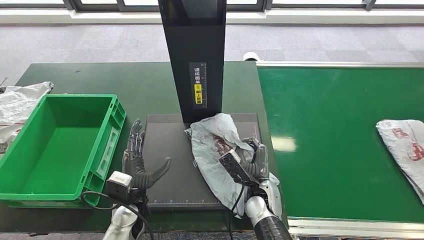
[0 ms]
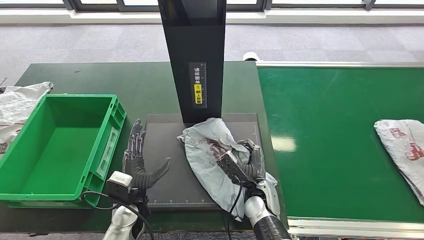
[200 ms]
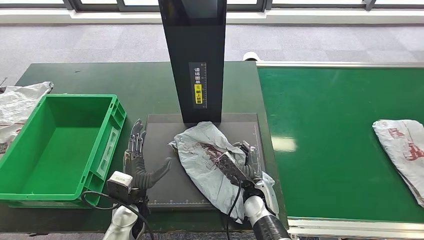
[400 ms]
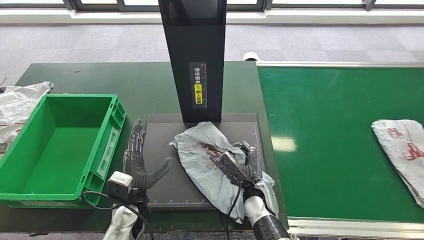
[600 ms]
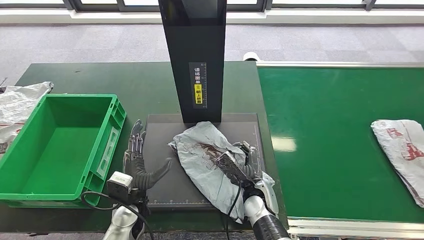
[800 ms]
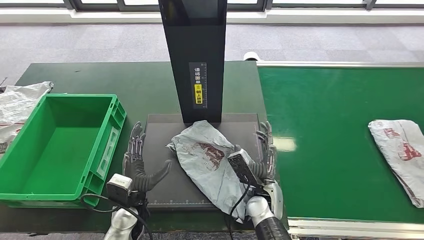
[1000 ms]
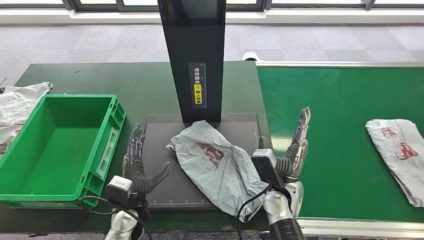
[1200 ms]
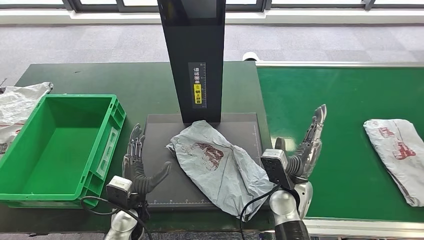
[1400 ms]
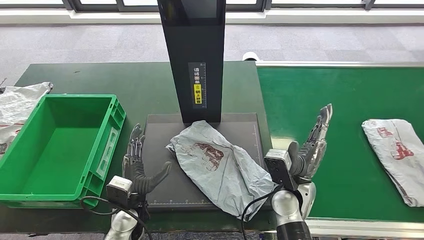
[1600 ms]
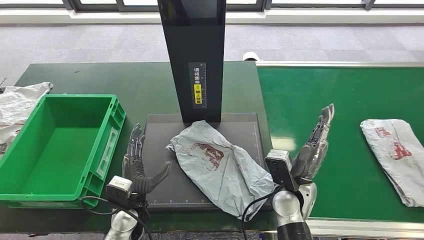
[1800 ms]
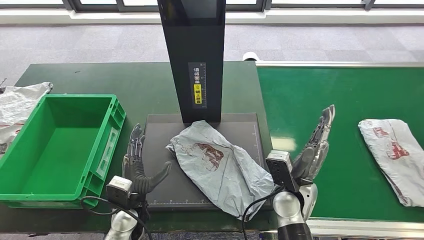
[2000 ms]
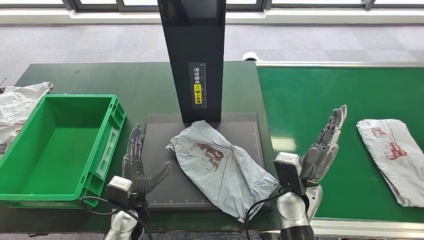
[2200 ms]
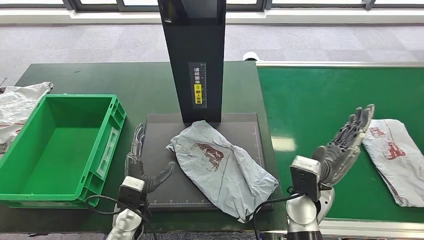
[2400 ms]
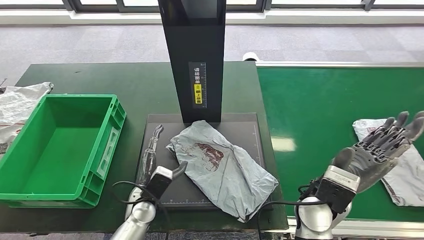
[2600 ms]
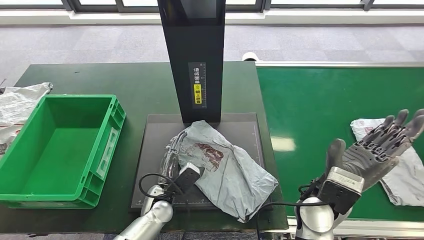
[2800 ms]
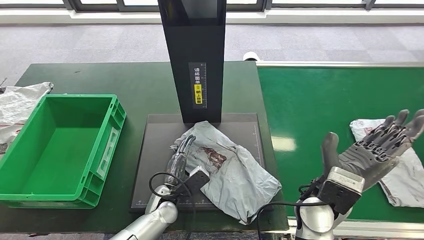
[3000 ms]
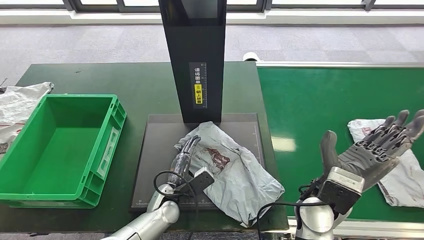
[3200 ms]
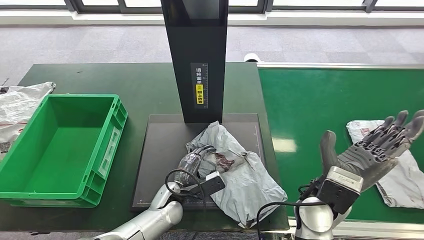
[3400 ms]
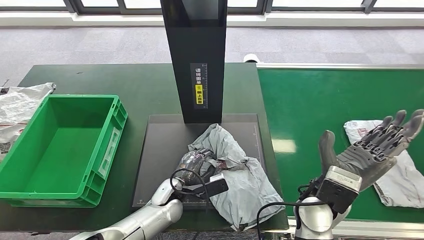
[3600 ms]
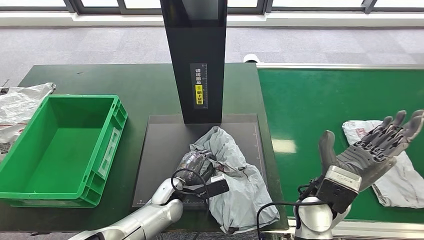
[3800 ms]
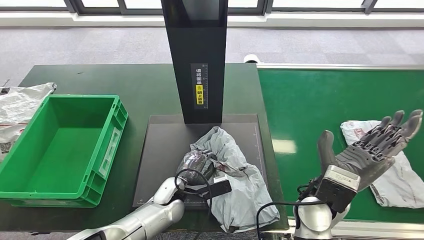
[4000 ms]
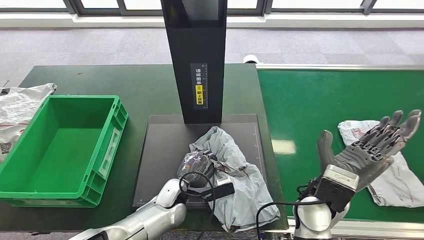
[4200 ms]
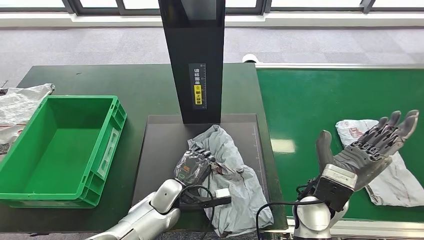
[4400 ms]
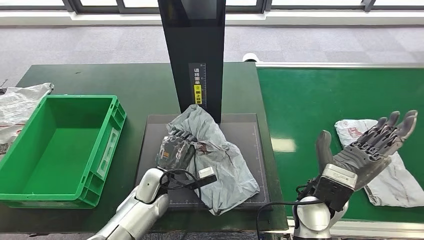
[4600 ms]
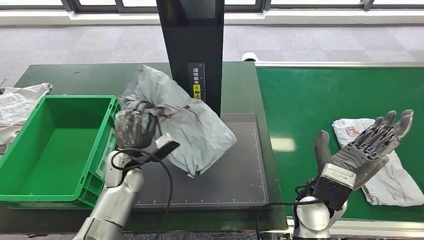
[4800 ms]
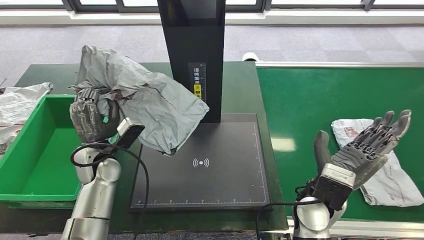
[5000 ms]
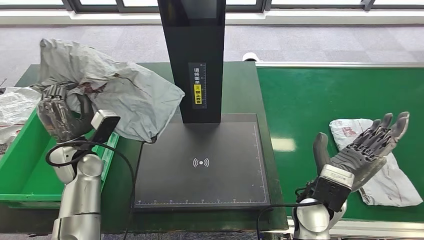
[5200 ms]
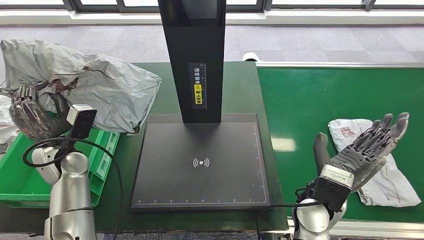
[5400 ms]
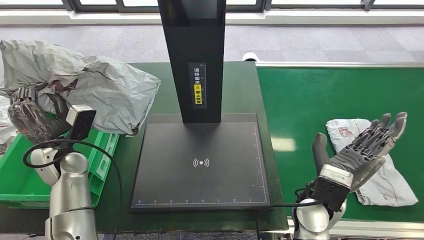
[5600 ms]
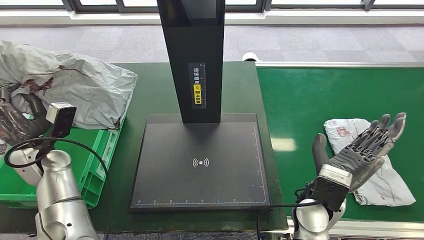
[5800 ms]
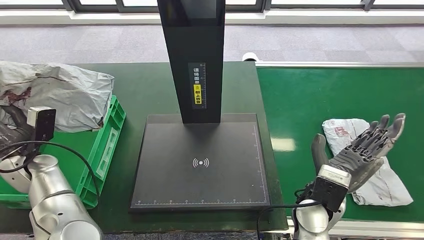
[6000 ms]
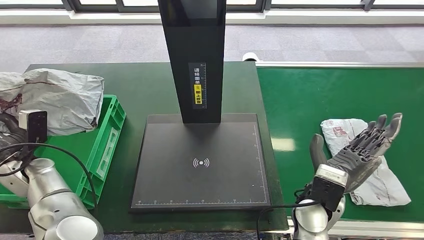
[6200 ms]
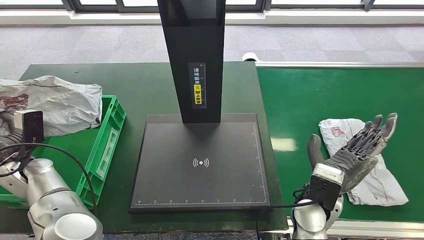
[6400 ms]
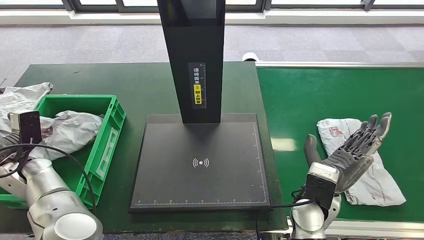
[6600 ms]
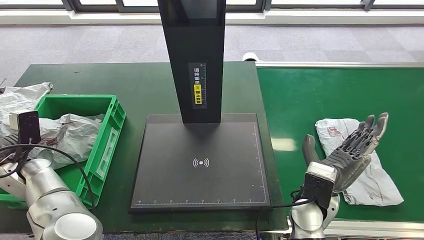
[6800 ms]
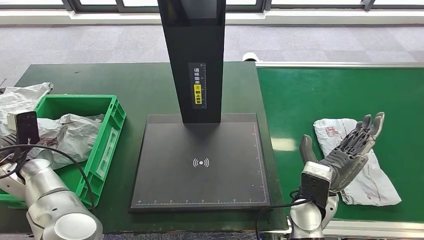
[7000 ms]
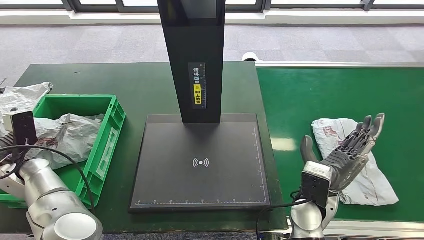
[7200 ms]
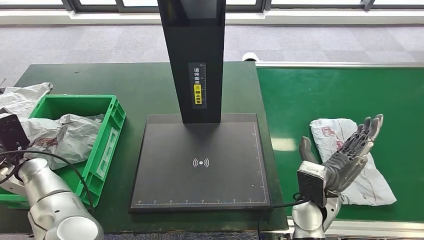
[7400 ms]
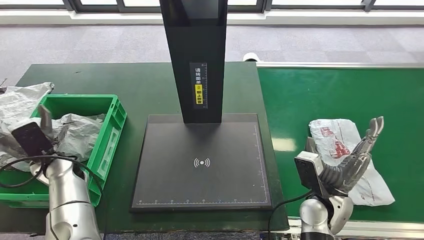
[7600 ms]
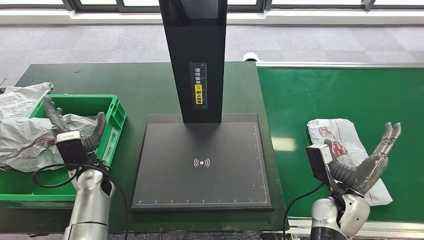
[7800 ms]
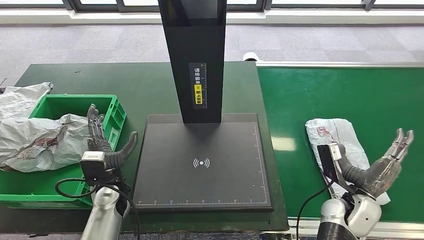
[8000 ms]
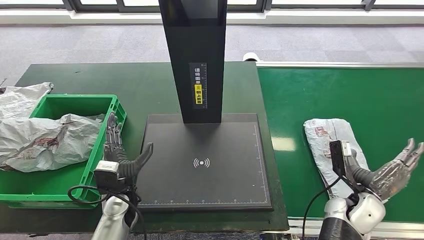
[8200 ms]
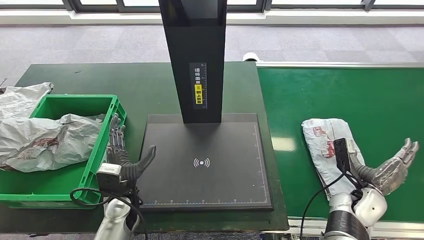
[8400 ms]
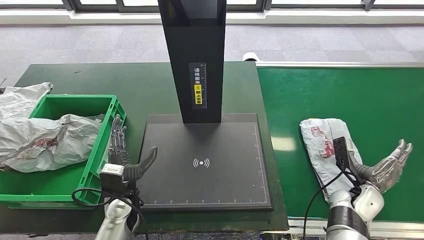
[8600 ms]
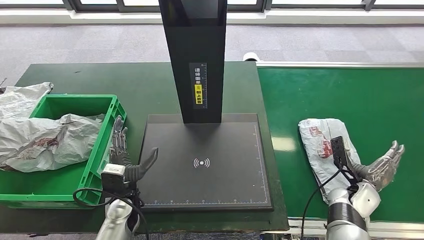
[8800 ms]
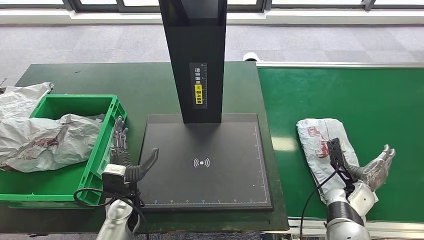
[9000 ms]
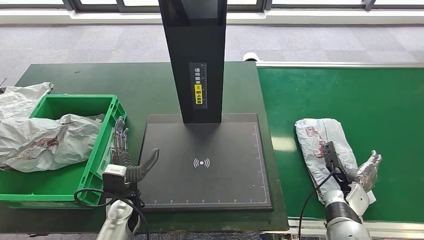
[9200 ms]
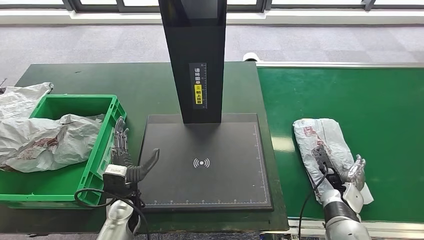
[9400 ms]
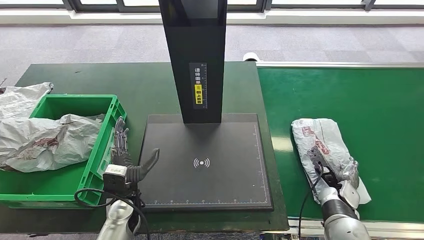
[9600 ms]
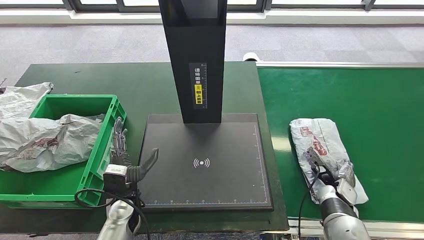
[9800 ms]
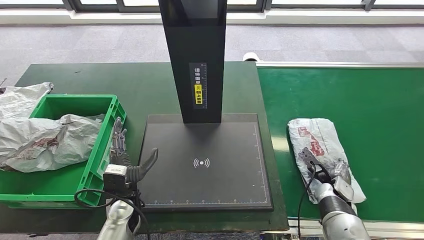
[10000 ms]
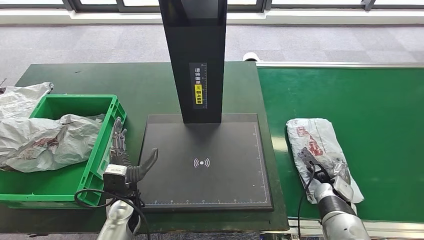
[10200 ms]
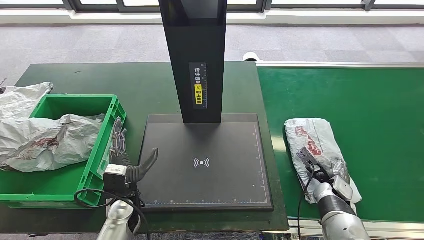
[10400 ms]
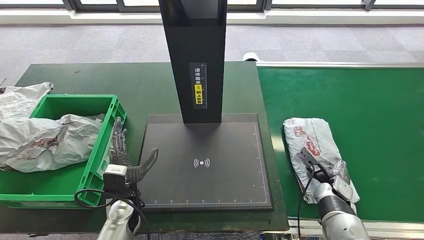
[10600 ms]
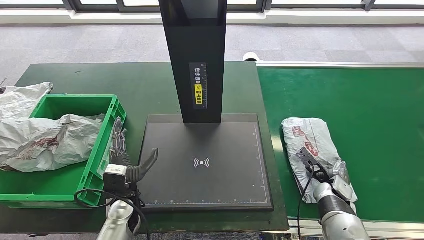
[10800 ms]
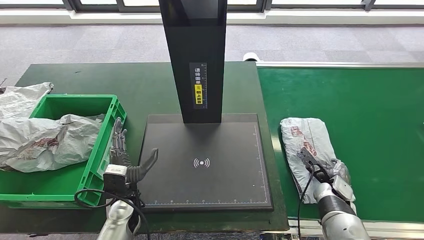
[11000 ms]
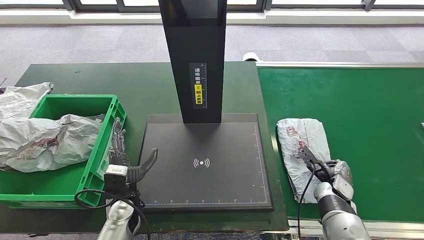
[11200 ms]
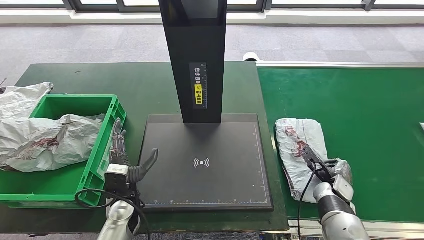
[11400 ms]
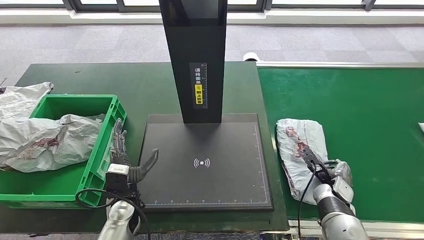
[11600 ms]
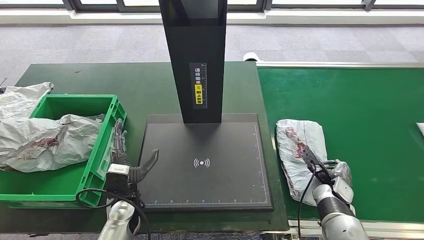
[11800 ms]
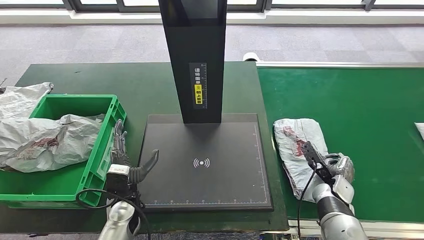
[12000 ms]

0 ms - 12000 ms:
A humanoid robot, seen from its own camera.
Step, 1600 ms - 4800 ms: Pick up the parcel from the inbound machine.
Step, 5000 ms - 7800 ms: Put the parcel inside the courier box.
0 ms - 1600 ms: The right hand is displaced upward and to the right by approximately 10 cm.
1600 ms - 3000 ms: The left hand heads to the right, covering roughly 10 cm. Meanwhile the right hand moves upward, some 5 cm.
7600 ms - 9000 ms: The right hand travels to the right and downward by about 15 cm. The left hand goes approximately 20 cm to the right and backward.
10400 ms - 12000 ms: The hands make only small movements.

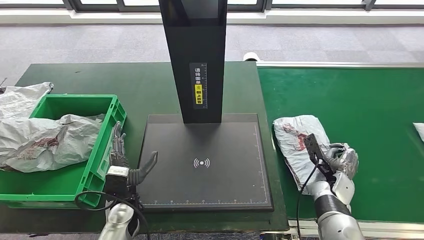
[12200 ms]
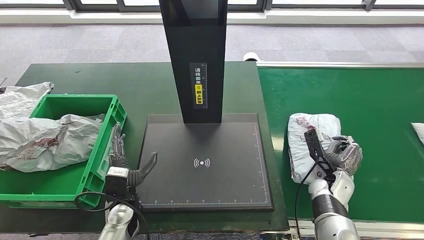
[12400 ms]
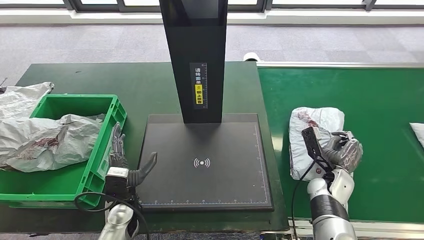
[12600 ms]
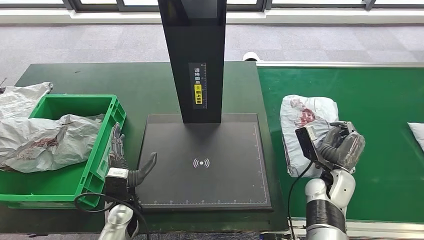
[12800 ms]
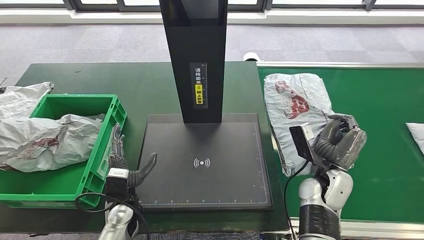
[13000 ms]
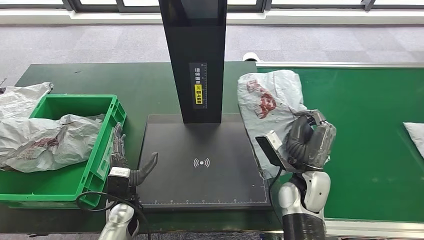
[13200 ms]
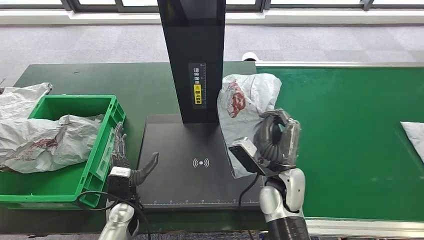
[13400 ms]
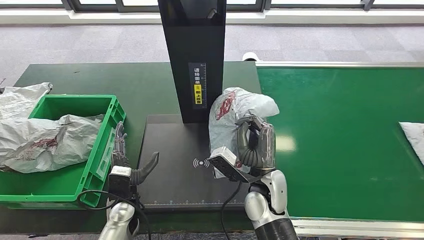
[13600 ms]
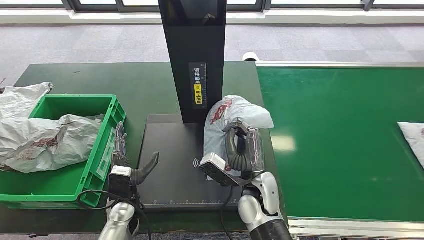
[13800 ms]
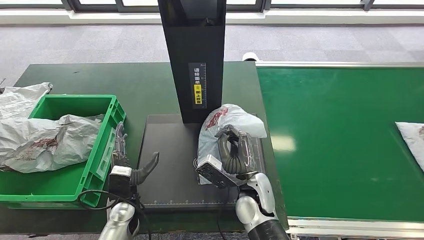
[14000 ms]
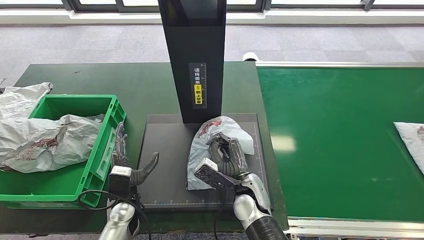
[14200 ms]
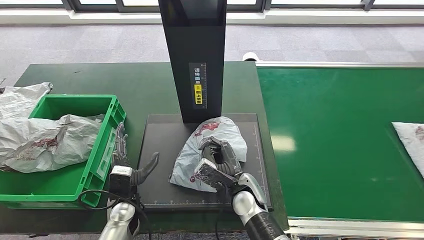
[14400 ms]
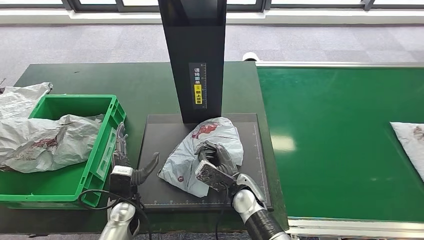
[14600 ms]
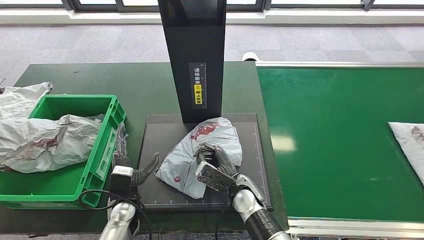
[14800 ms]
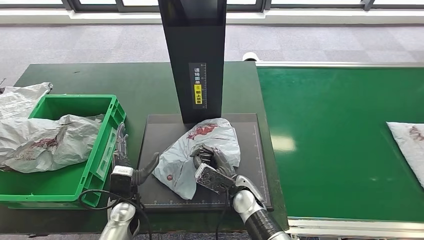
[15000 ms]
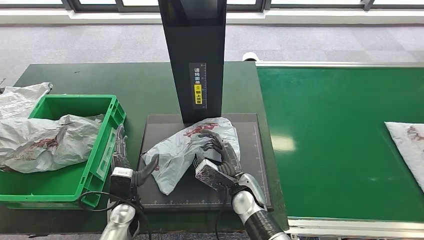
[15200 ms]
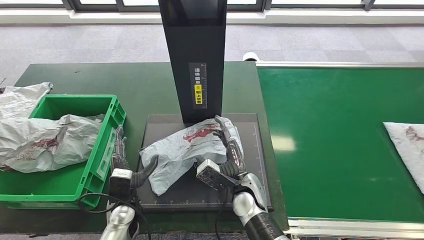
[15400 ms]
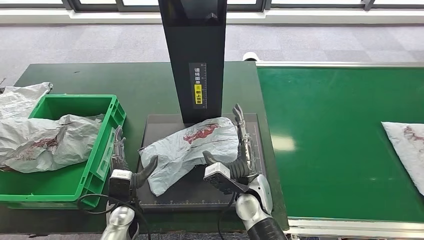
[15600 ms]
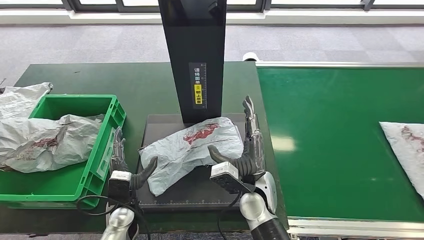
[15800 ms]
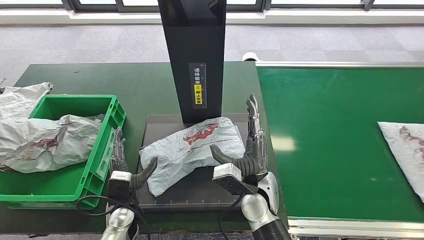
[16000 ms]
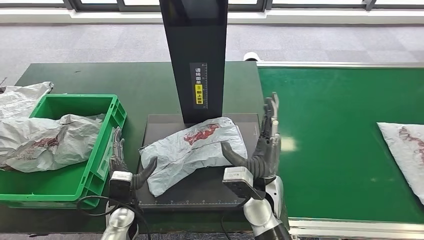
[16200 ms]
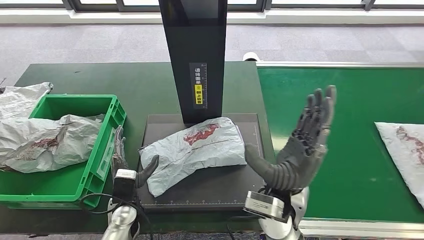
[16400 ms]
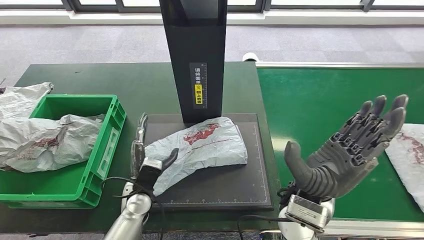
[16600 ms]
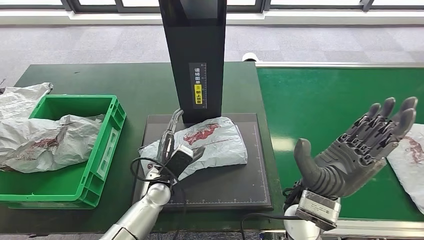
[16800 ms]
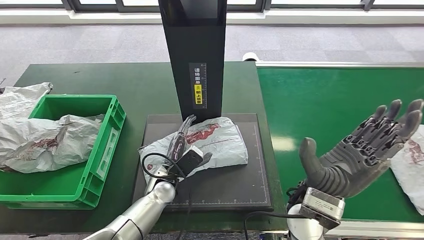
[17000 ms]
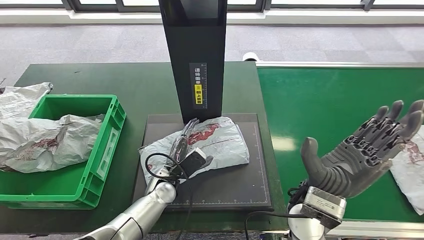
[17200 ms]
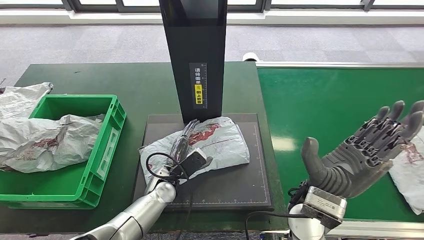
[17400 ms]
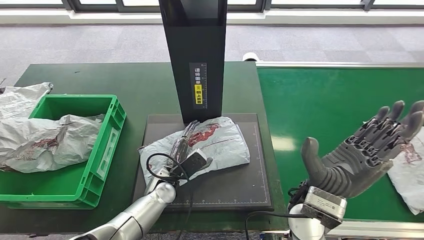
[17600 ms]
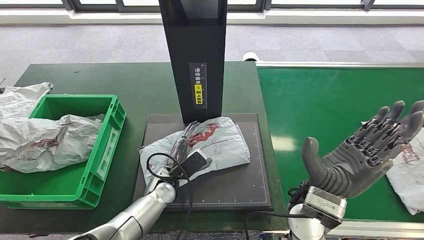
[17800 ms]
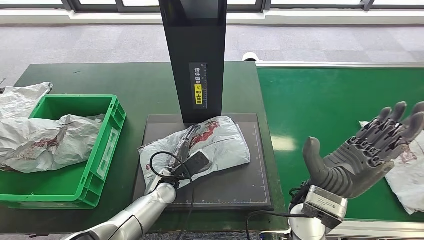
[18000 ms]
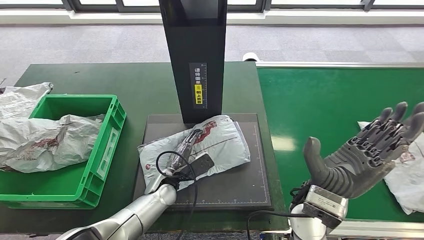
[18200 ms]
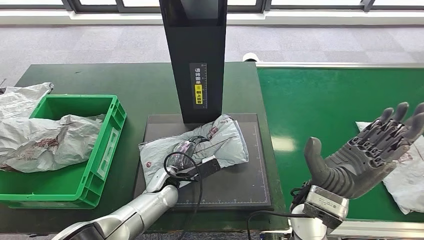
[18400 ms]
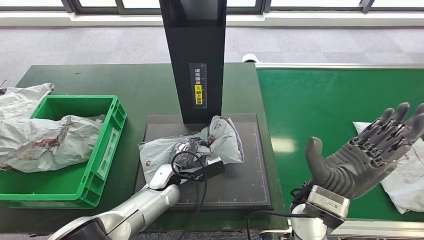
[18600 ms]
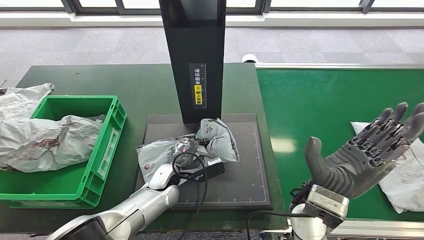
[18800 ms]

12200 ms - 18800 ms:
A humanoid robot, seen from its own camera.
Step, 12800 ms - 15600 ms: Place the parcel onto the inbound machine.
12200 ms - 13800 ms: The right hand shifts roughly 25 cm to the left and upward.
13800 ms - 15400 ms: The right hand shifts by roughly 5 cm.
15400 ms - 17200 ms: The left hand shifts some 10 cm to the right, while the right hand travels upward and to the right by roughly 15 cm.
